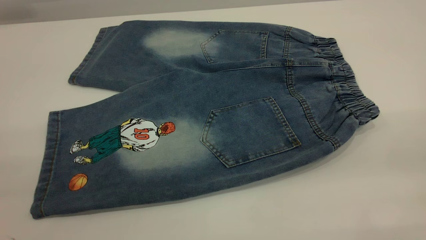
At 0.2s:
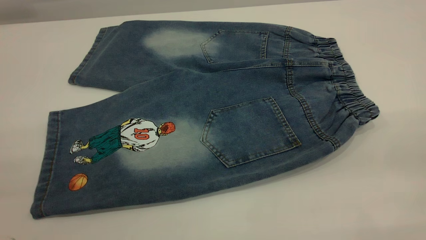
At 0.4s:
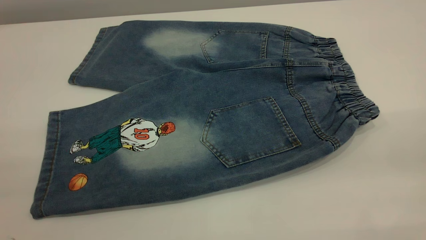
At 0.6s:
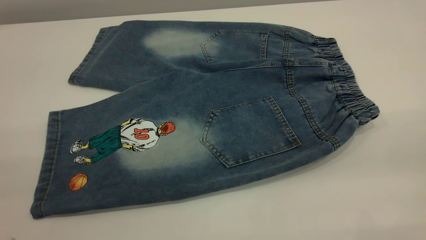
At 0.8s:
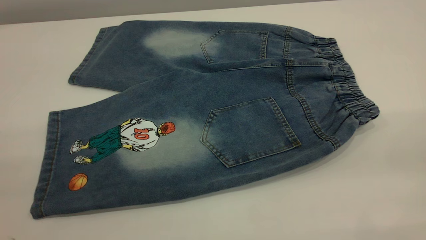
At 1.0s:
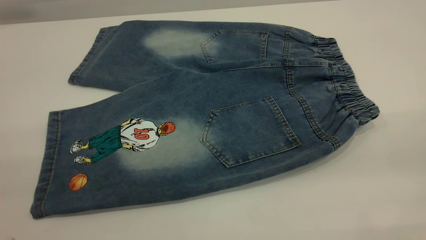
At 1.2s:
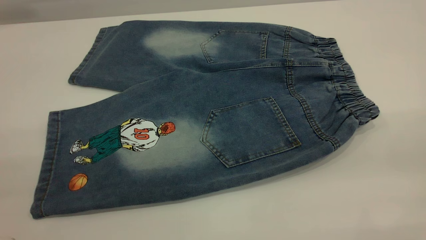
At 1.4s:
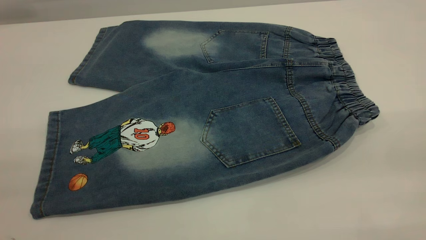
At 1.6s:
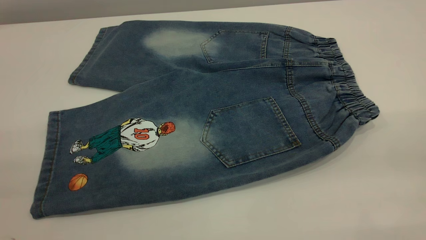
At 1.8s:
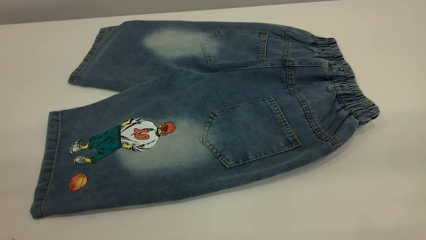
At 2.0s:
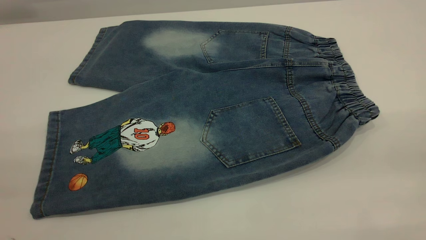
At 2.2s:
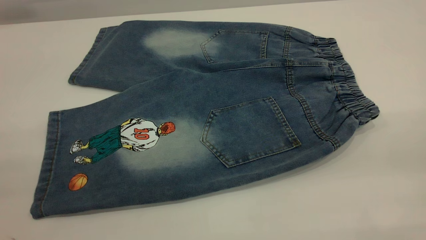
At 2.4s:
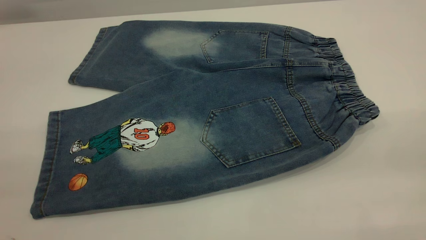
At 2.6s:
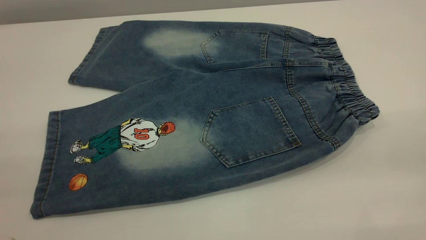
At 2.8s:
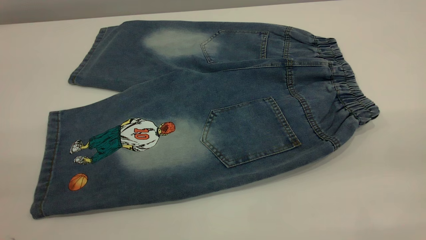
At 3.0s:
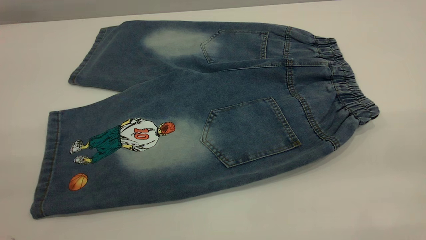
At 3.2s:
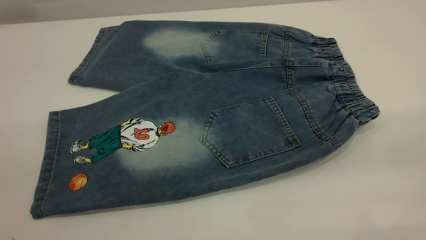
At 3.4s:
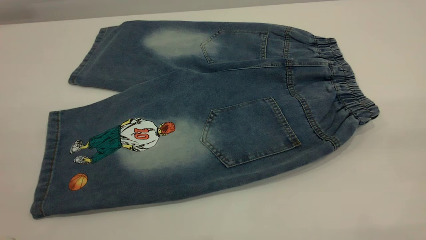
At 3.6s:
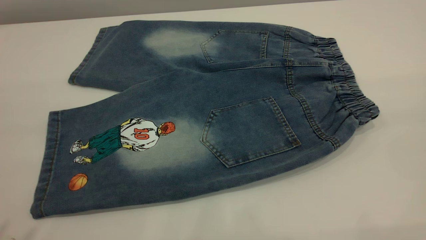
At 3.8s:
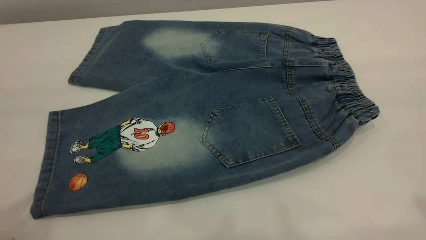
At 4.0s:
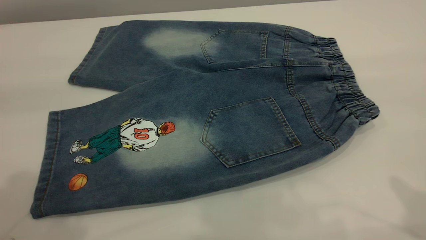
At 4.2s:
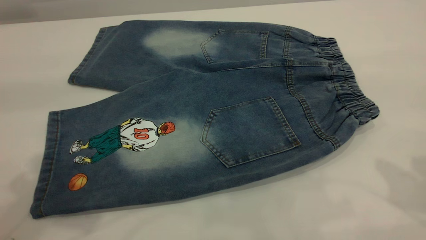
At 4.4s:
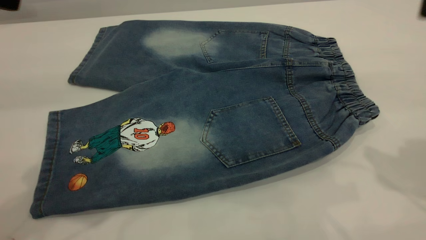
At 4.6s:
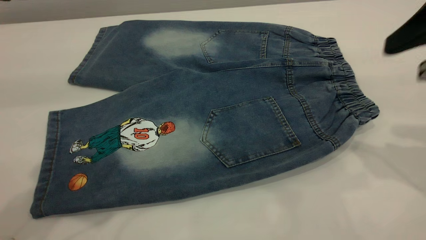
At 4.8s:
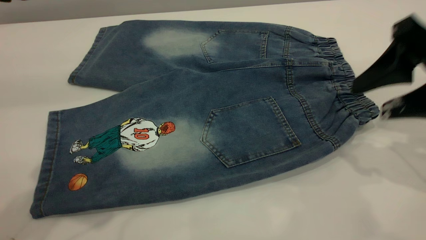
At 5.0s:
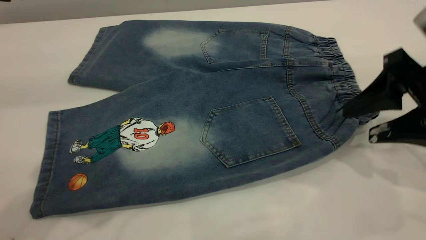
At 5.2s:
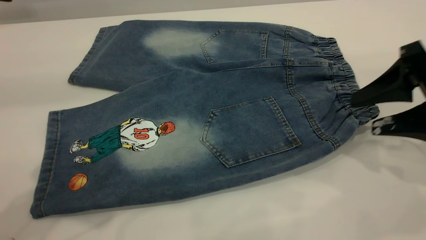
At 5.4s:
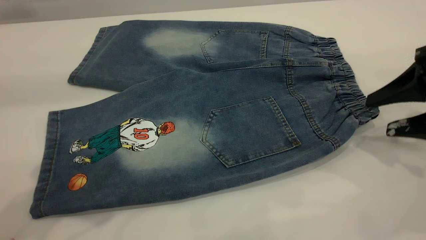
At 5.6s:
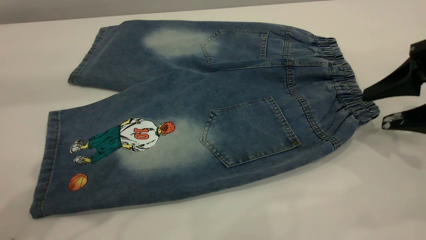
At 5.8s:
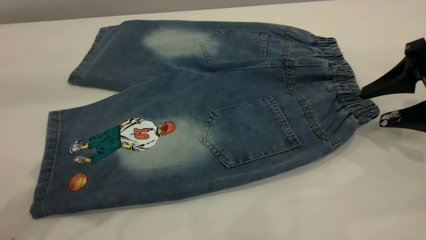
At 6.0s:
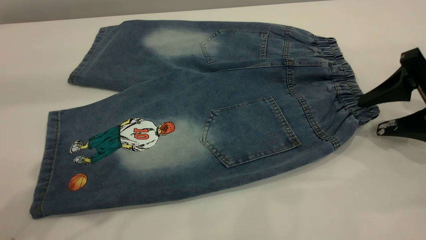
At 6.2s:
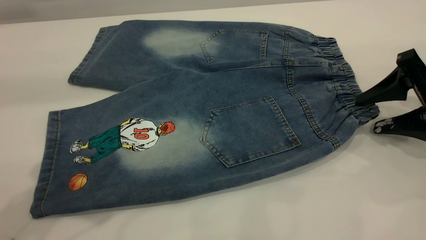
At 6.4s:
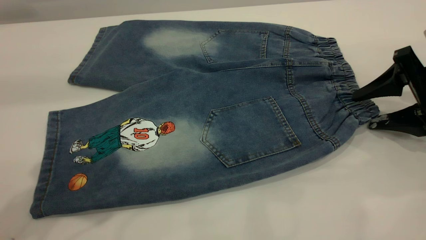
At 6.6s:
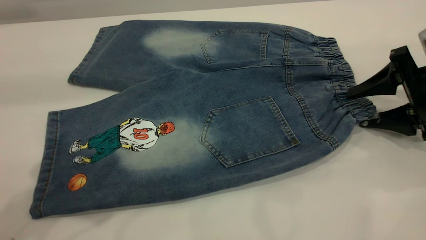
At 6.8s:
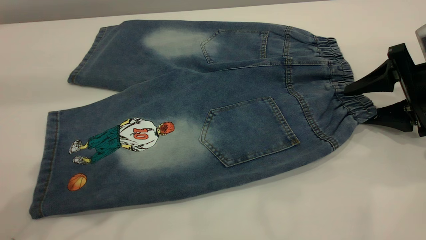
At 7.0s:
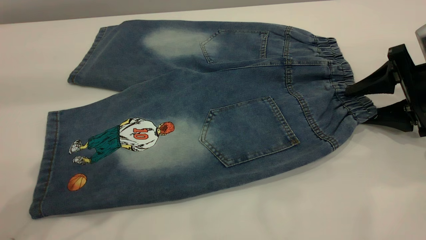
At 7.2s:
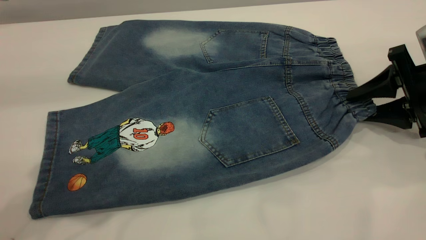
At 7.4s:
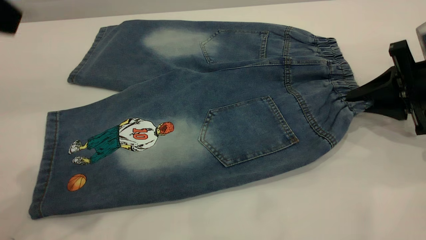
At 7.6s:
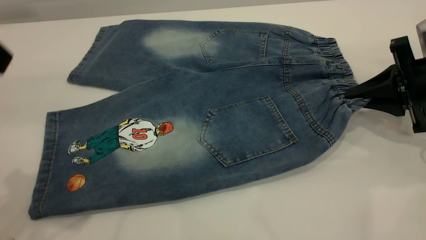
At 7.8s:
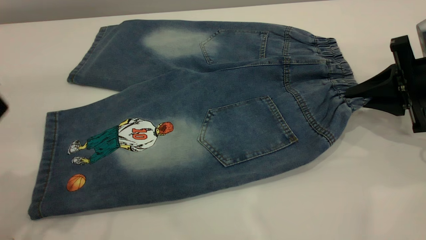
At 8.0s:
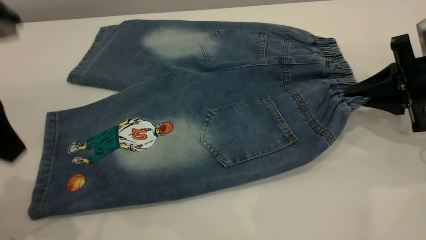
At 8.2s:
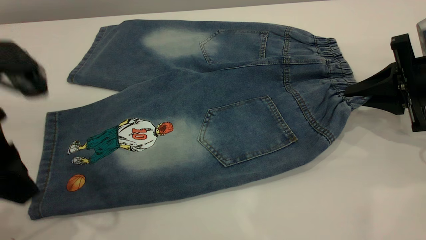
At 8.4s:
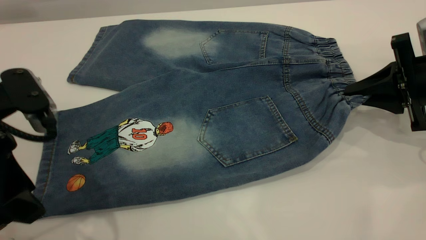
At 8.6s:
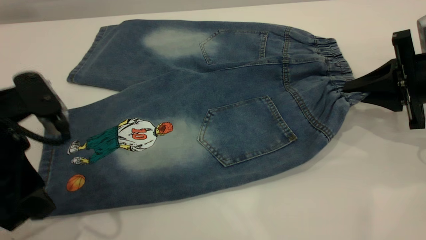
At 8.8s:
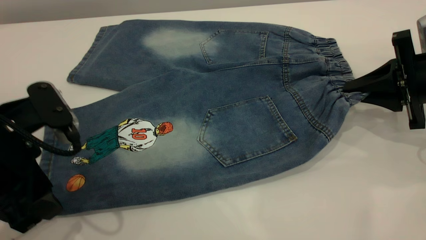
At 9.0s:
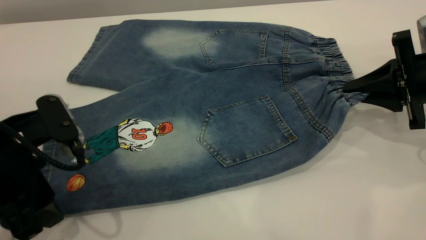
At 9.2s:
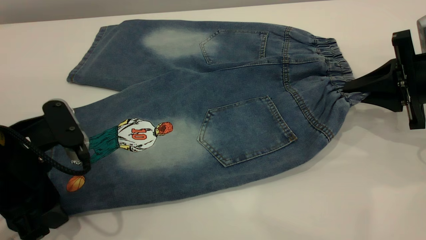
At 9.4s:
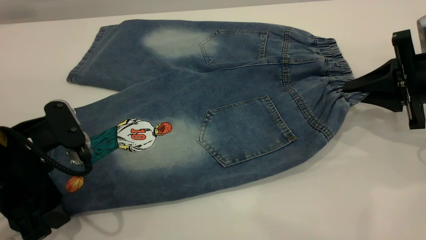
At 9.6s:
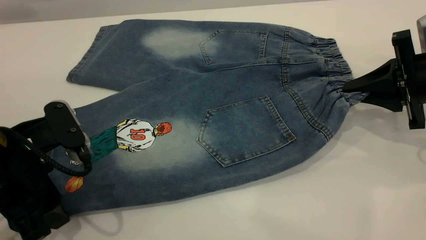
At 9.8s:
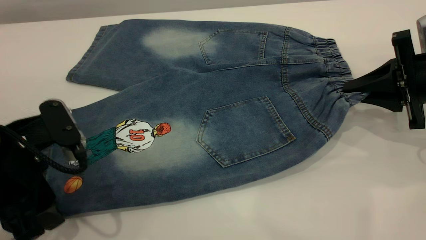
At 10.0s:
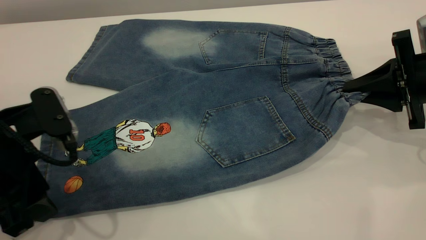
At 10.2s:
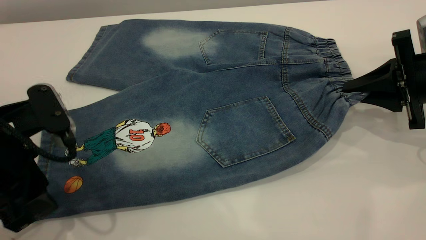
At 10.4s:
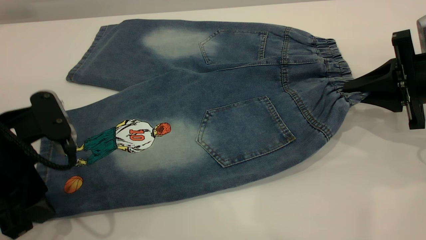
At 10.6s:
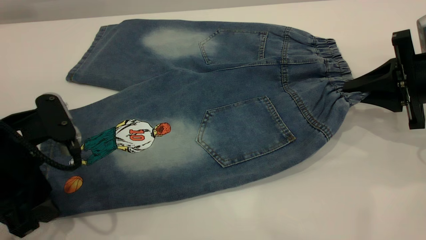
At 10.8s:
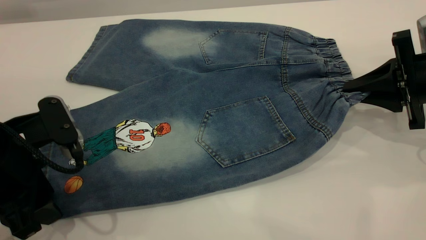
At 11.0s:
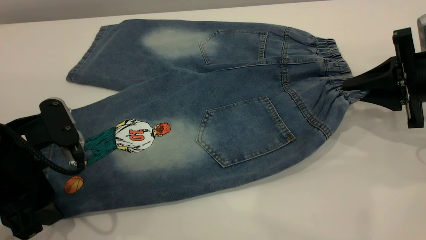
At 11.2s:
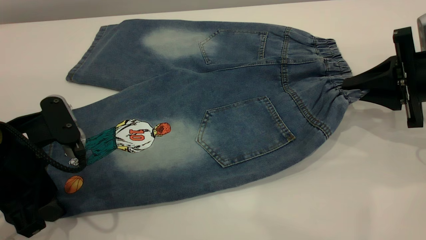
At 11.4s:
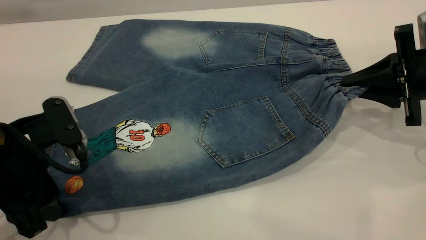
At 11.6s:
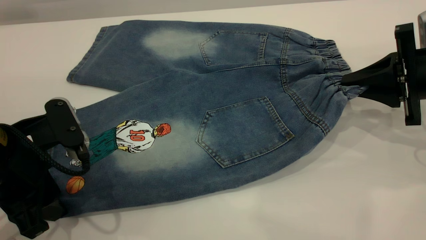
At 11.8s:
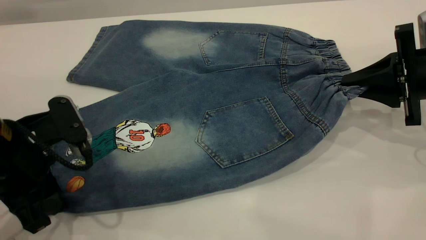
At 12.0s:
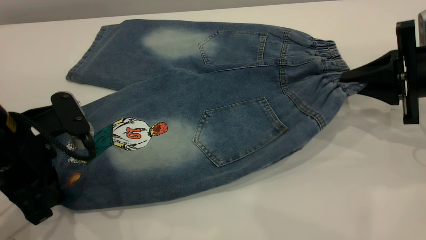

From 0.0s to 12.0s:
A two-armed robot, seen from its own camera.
From 0.0s to 3.0s: The two grippers keep their place.
From 4.4s to 6.0s: The right gripper is displaced downward and forward by about 20 cm.
From 6.0s to 7.6s: The right gripper closes its fingers.
From 7.6s to 9.0s: The left gripper travels downward by about 15 cm.
From 9.0s to 10.4s: Both grippers stay put.
From 10.4s to 12.0s: The left gripper closes up.

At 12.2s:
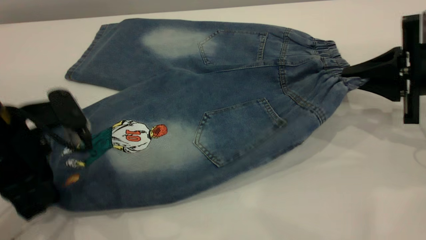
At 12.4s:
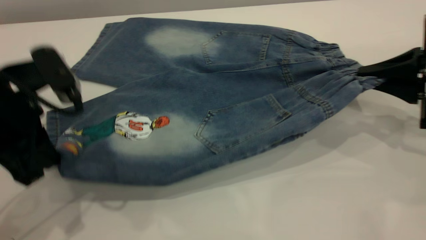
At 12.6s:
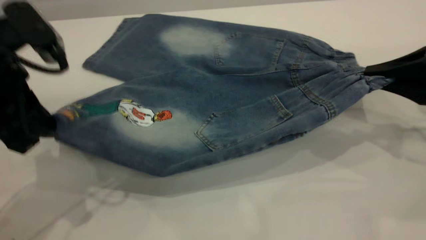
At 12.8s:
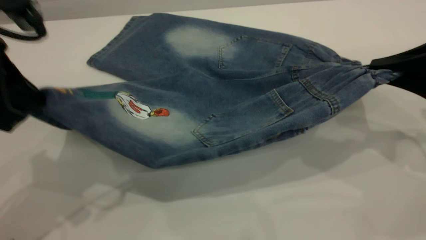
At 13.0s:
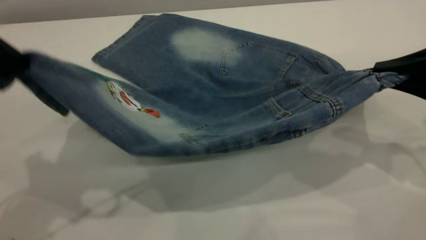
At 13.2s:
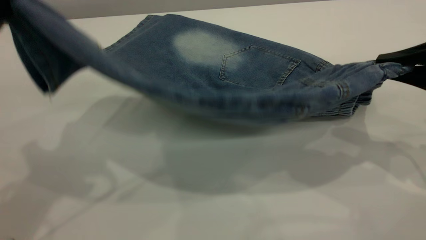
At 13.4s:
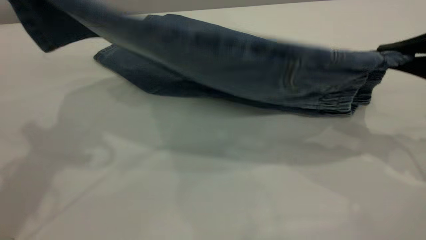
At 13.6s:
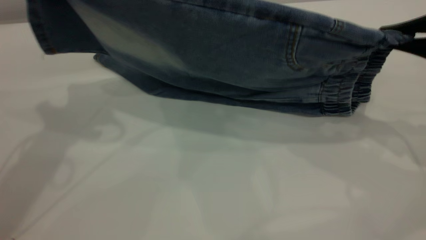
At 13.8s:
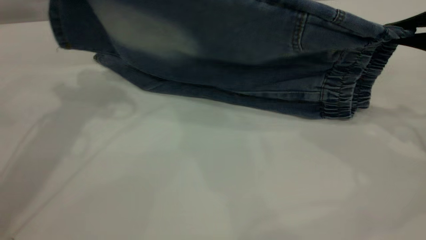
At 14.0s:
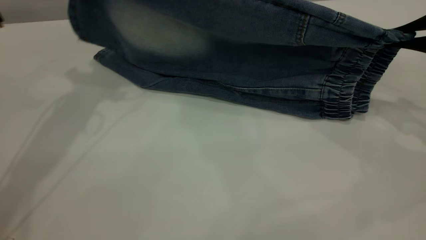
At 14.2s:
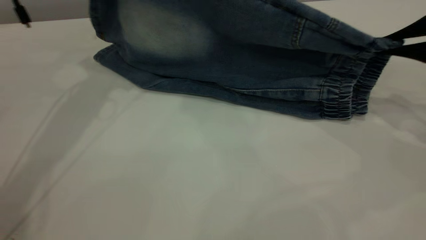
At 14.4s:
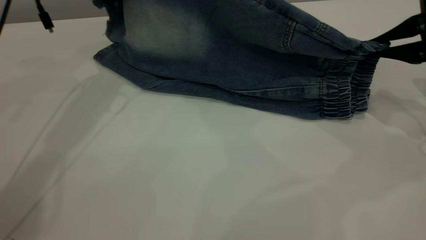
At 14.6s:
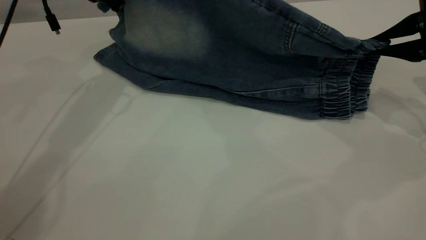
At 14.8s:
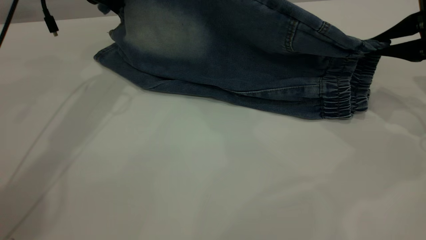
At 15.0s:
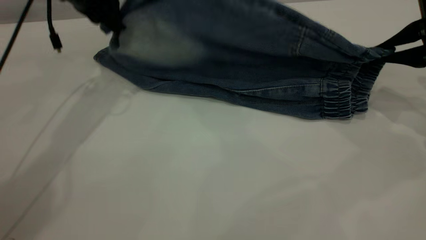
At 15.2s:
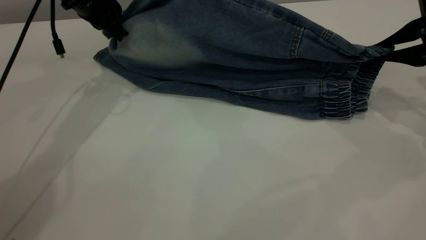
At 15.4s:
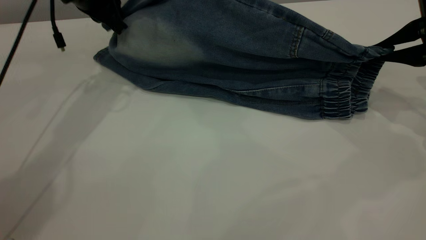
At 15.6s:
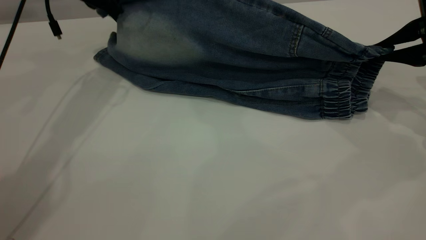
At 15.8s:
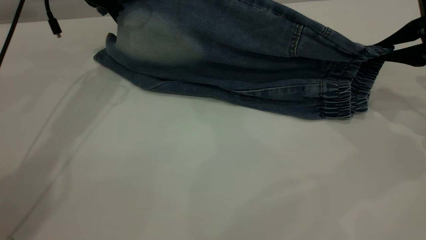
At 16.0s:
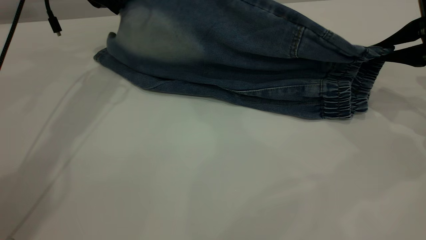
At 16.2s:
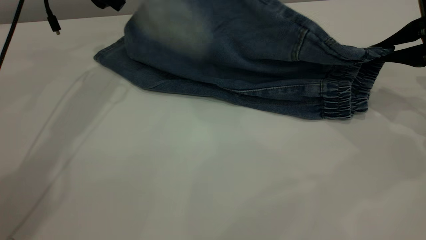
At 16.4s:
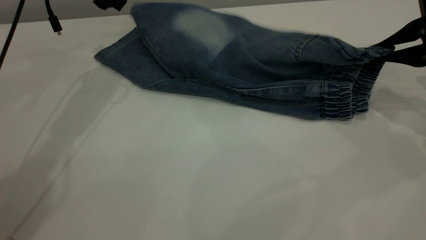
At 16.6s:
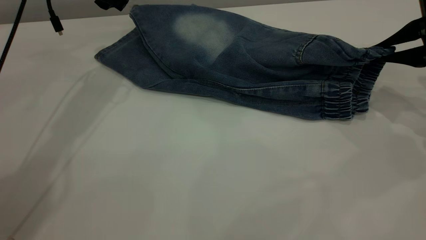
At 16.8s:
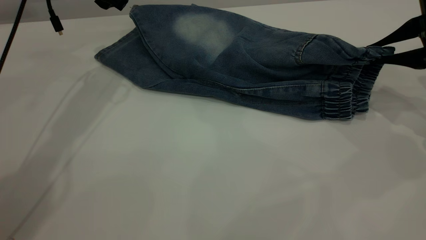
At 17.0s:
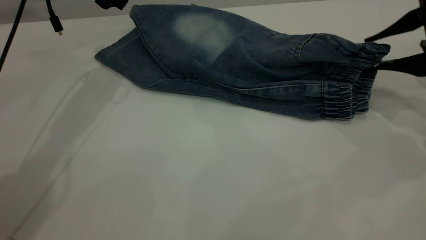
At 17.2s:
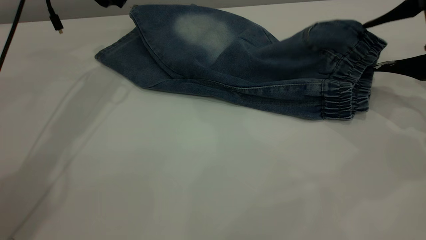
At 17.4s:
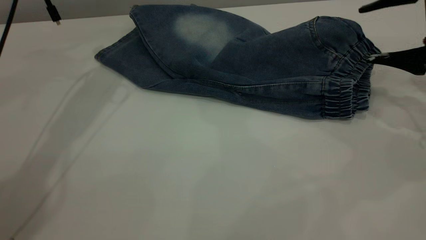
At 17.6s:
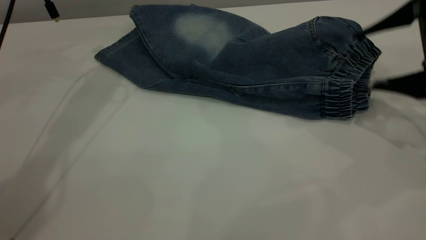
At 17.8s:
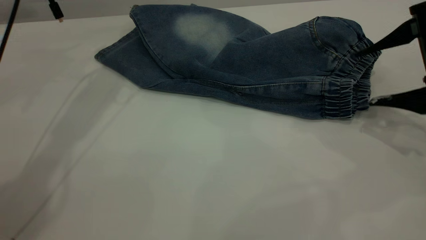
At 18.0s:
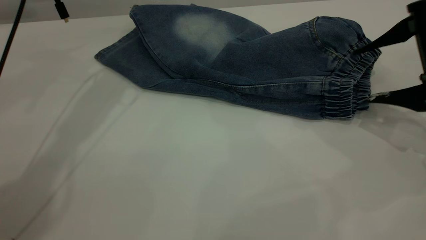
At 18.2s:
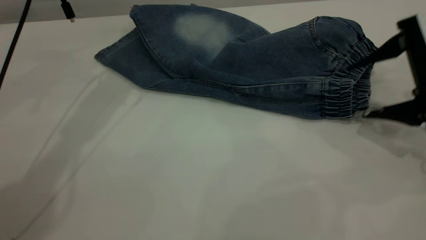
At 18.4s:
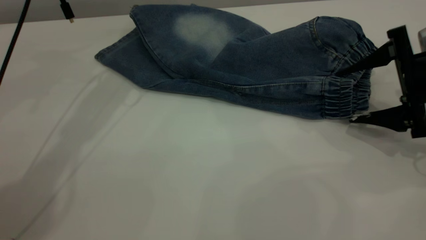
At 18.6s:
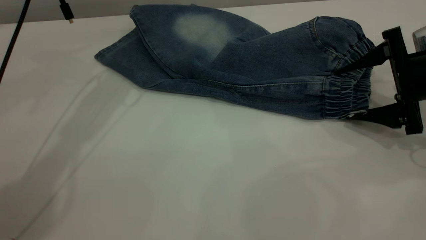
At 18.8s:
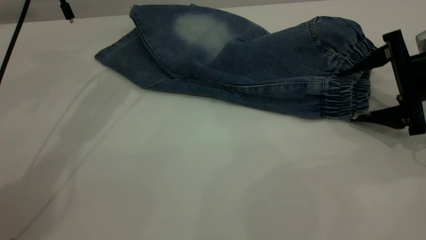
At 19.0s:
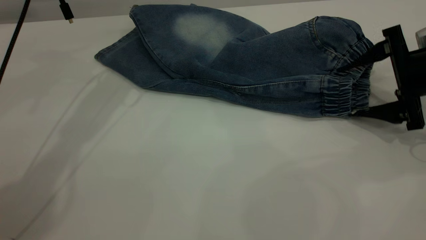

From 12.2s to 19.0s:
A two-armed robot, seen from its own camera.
Step, from 12.2s to 17.4s: Fold the bottom of the pants upward.
From 12.2s to 13.6s: The right gripper goes roughly 10 cm upward. Meanwhile the left gripper goes approximately 20 cm upward and forward.
From 13.6s to 15.0s: The left gripper moves forward and downward, about 15 cm; the right gripper goes about 5 cm forward.
From 15.0s to 16.2s: The left gripper opens.
From 16.2s to 17.6s: The right gripper opens its fingers.
From 17.6s to 19.0s: The right gripper travels downward by roughly 5 cm.
